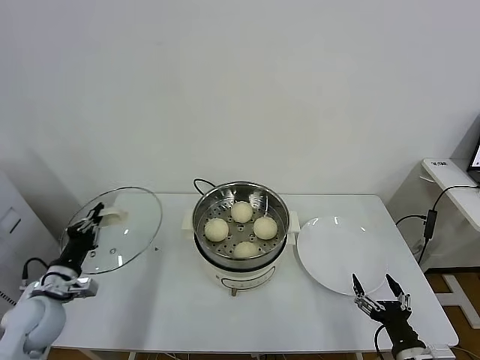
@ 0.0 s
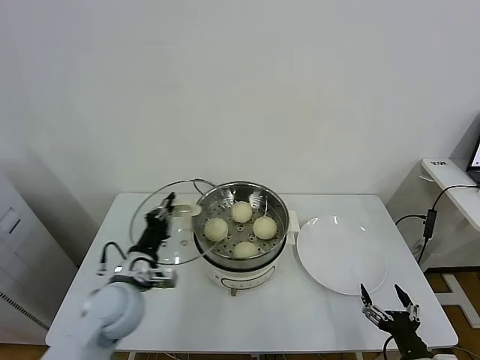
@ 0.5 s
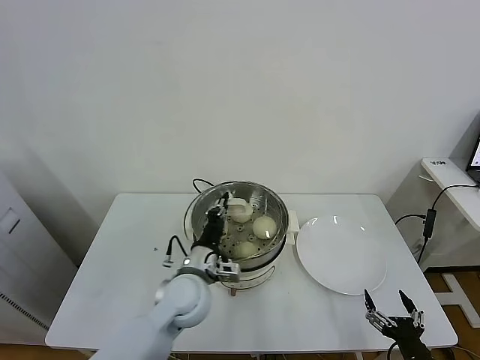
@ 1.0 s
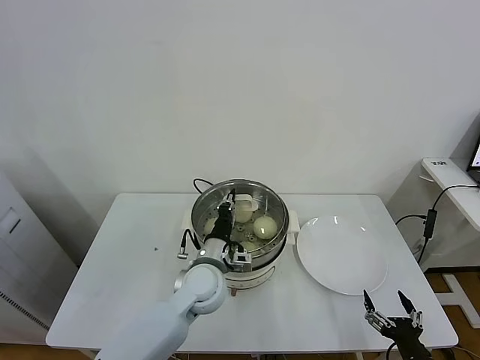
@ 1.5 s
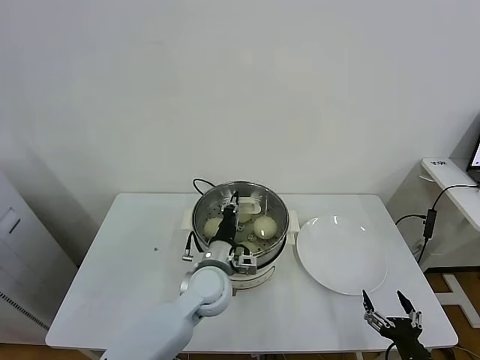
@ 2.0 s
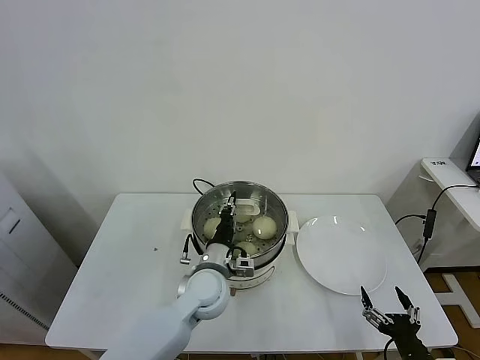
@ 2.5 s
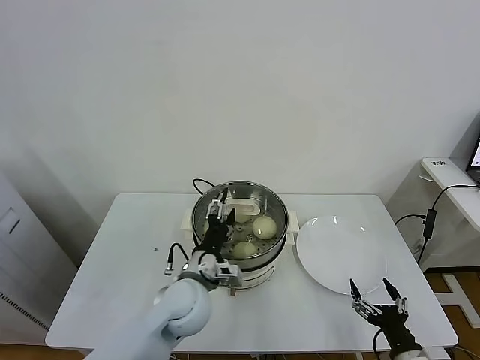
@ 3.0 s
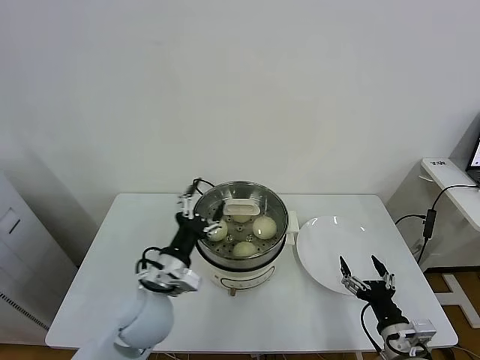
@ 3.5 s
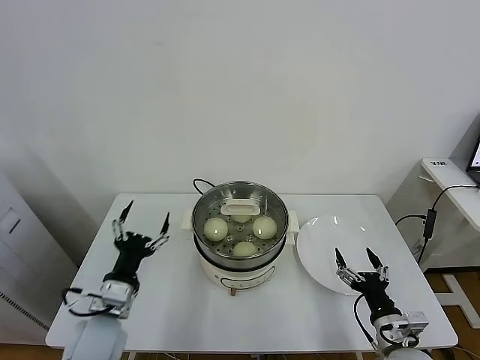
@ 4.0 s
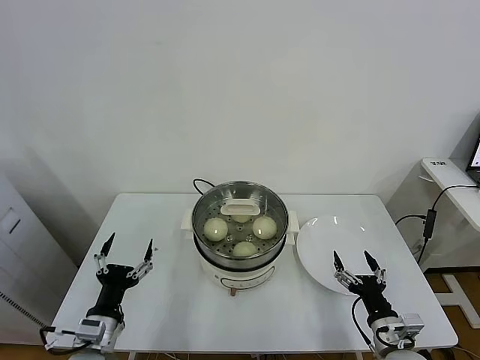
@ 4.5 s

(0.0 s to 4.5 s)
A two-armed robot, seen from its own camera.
Task of the whole recording: take steamed baozi put them in steamer.
Step, 0.0 s - 2.5 s: Place the pot lid on the steamer with left gripper.
0.0 s - 2.0 s: The left gripper moves to the right, roughly 35 cm.
2.0 s - 4.5 s: The left gripper is displaced to the left and backward by about 25 cm, and opens. Meanwhile the right gripper moves forward, some 10 cm.

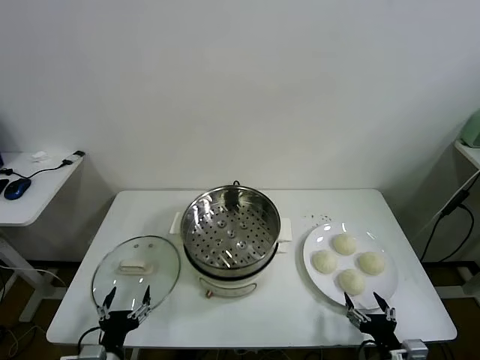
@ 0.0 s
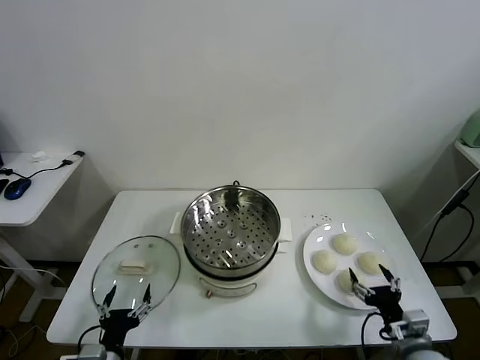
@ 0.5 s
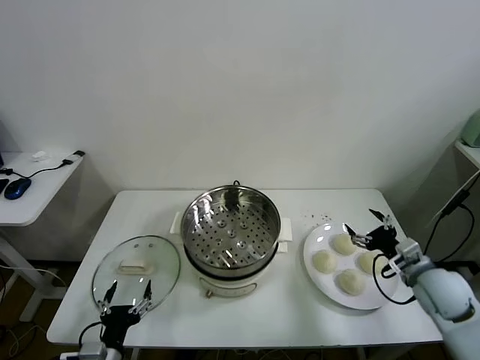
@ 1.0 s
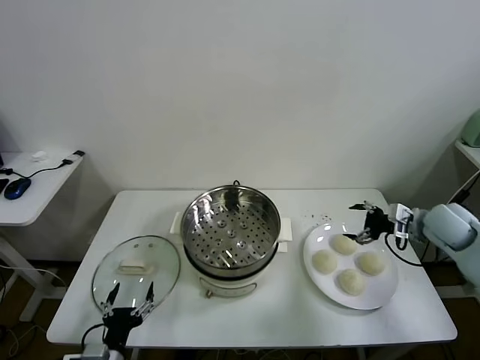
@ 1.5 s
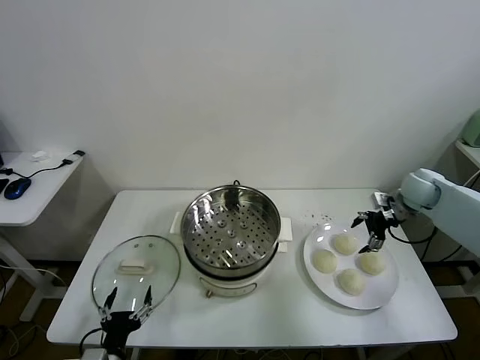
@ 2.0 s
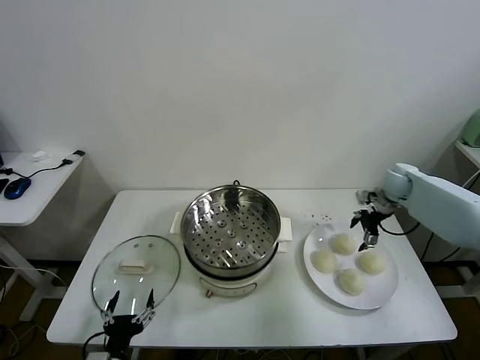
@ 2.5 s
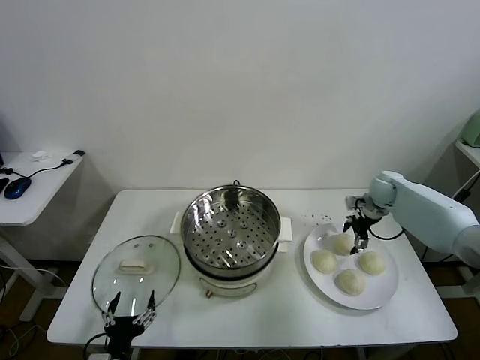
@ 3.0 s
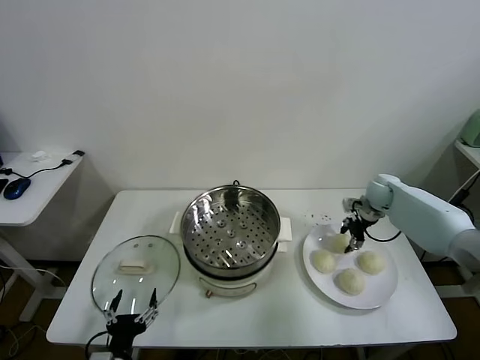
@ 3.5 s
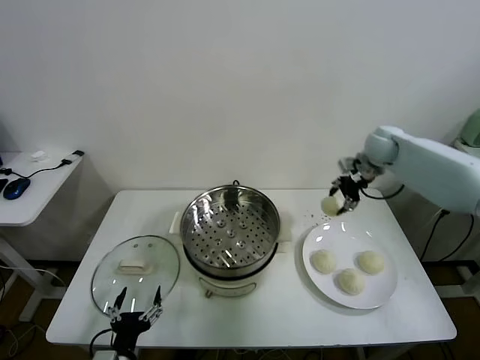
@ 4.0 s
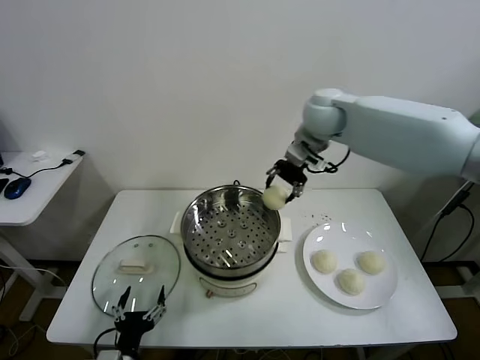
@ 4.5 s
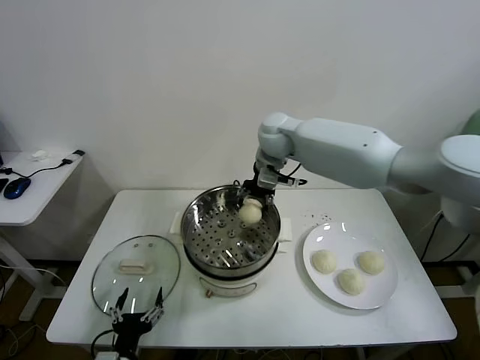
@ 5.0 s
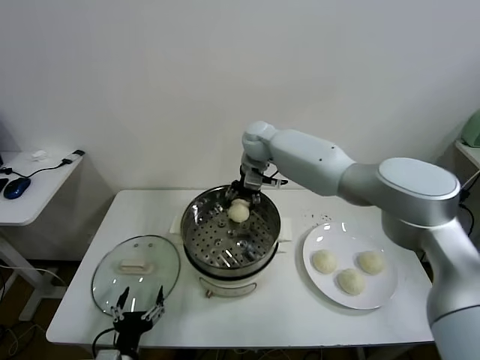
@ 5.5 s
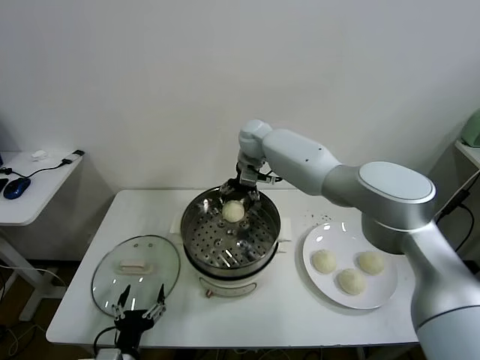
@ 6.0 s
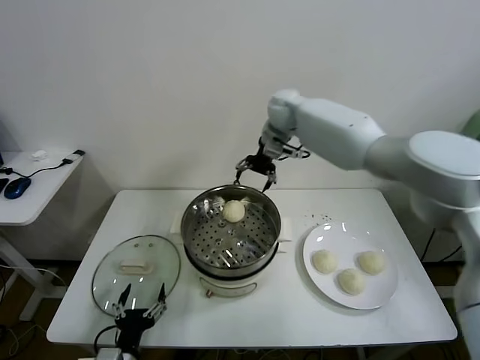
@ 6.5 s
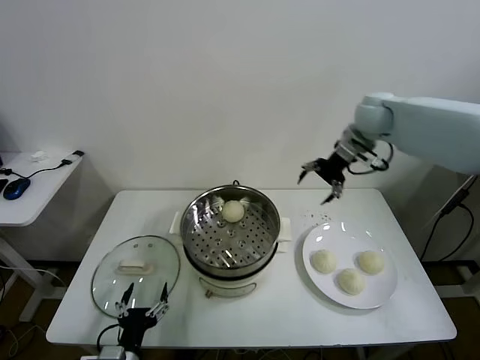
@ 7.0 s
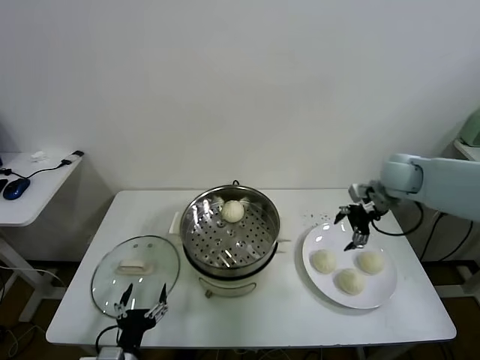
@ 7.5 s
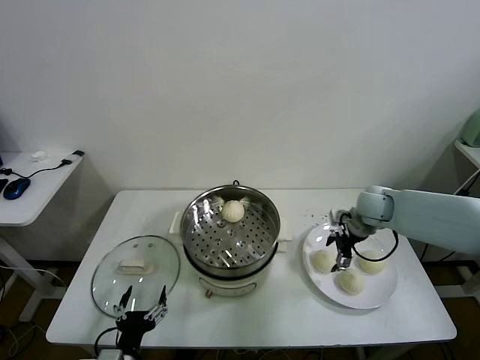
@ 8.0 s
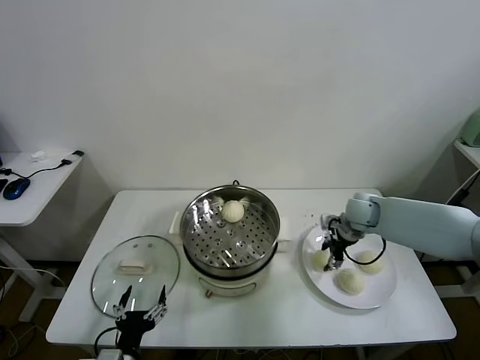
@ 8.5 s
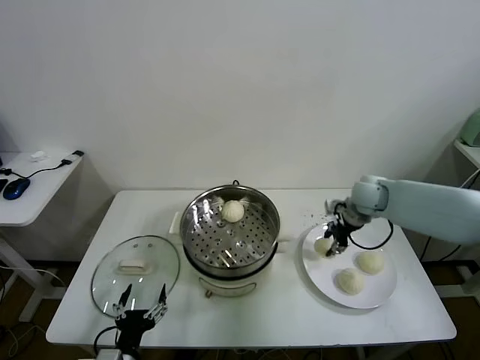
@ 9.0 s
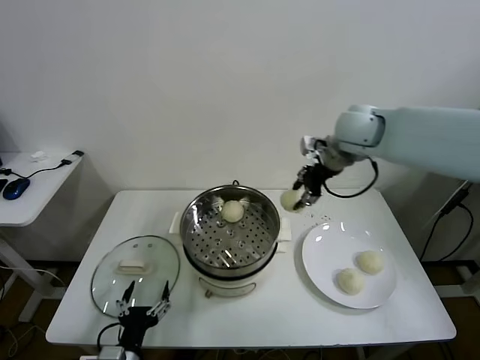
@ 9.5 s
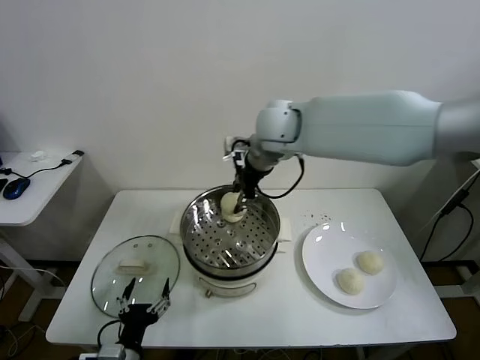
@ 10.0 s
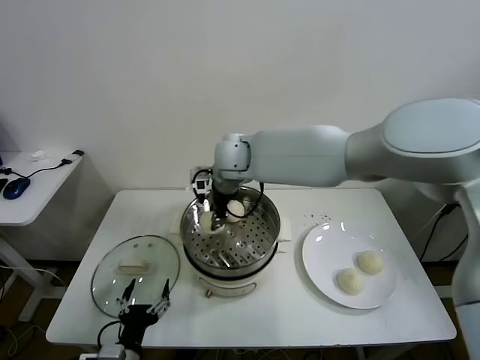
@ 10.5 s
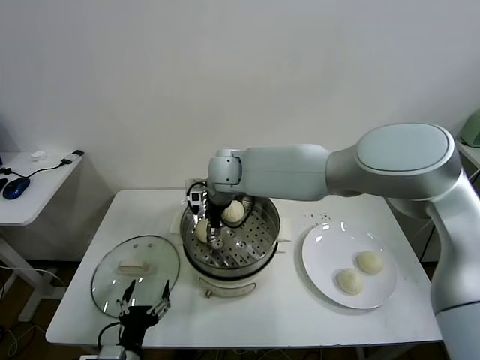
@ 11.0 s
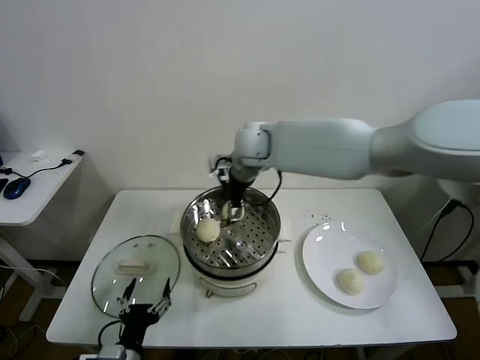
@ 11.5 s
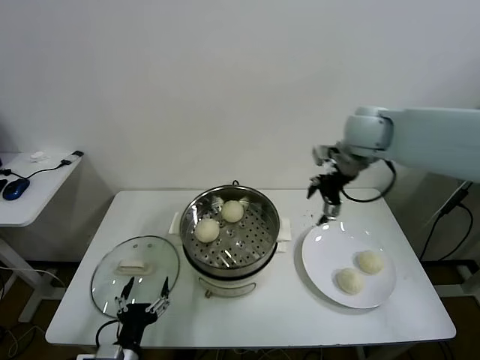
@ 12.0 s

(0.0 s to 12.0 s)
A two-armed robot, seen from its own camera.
Task of the whole recording: take steamed baozi put them in steamer.
Step, 0.0 s - 3.0 s: Grasp the baozi in the plate with right gripper.
Step, 3.5 s - 5.5 s: Place the baozi on the steamer with right gripper.
Step, 6.0 s - 8.0 s: Grasp the baozi in the plate with right gripper.
Step, 8.5 s - 11.0 s: Place the baozi on the steamer with right gripper.
2.0 s - 4.0 s: The right gripper goes roughly 20 cm upward and to the left, and closes.
4.0 s - 6.0 s: The right gripper heads to the left, covering about 25 cm, and opens its fingers.
6.0 s - 8.0 s: The right gripper moves to the right, backward and downward, about 35 cm.
8.0 s - 10.0 s: The right gripper travels to the left and upward by about 35 cm, and closes up.
10.0 s - 12.0 s: The right gripper moves to the right, about 25 cm, and opens.

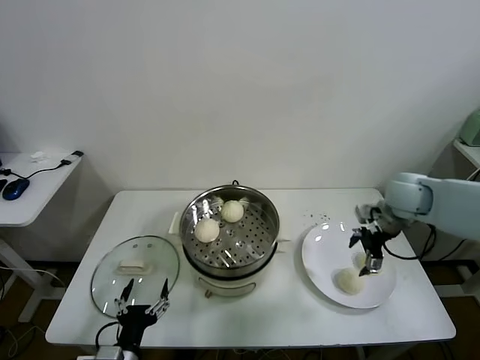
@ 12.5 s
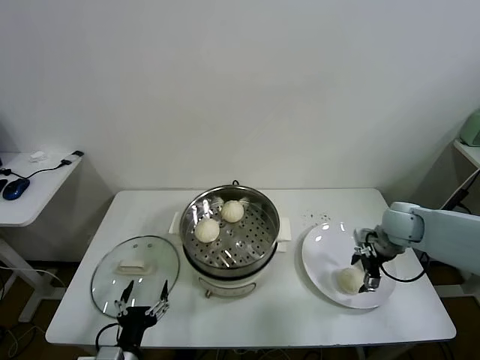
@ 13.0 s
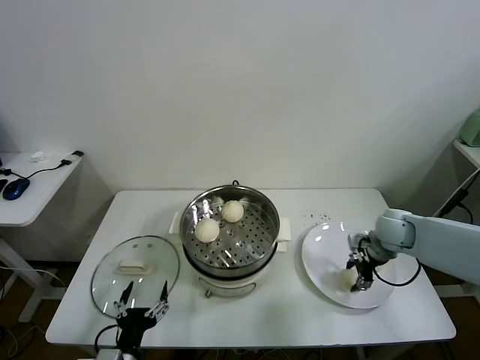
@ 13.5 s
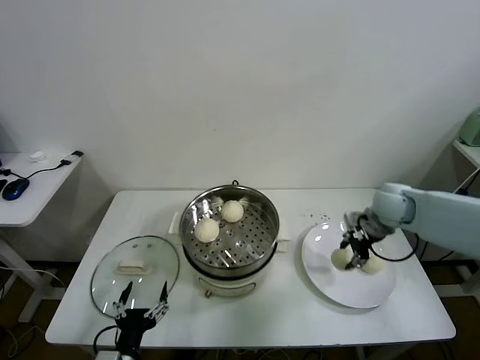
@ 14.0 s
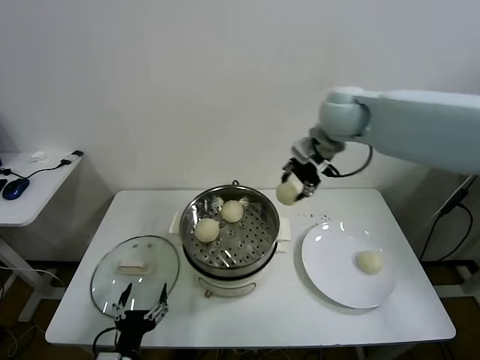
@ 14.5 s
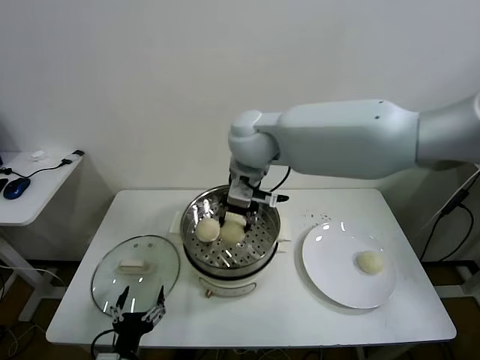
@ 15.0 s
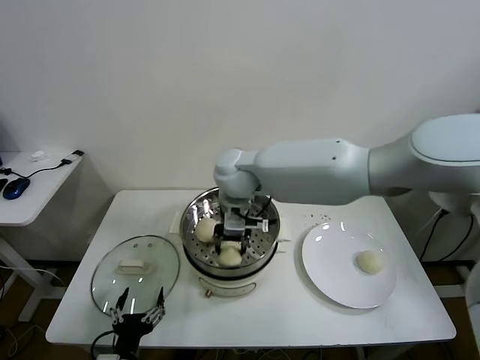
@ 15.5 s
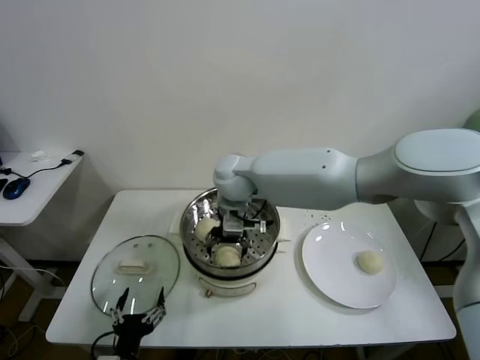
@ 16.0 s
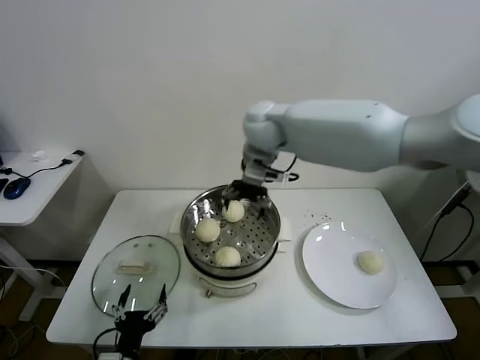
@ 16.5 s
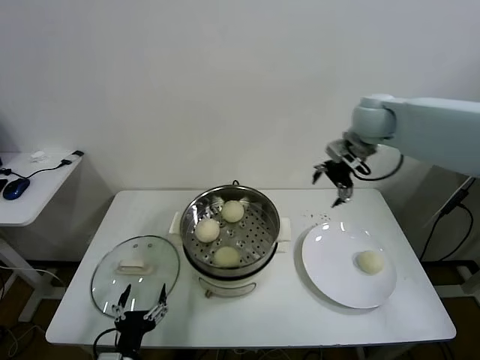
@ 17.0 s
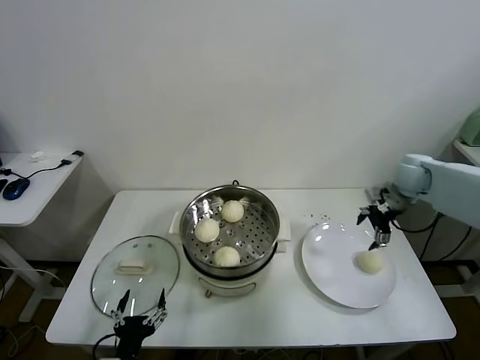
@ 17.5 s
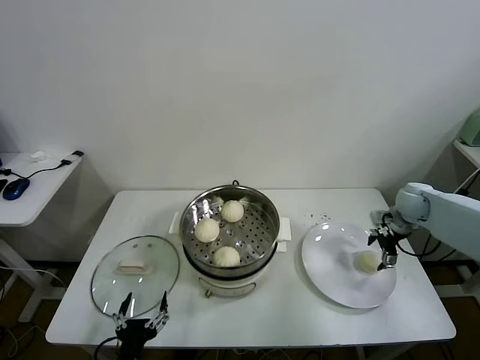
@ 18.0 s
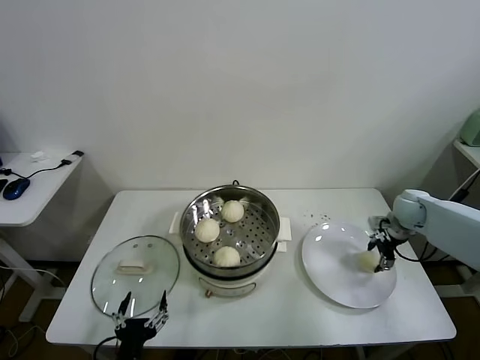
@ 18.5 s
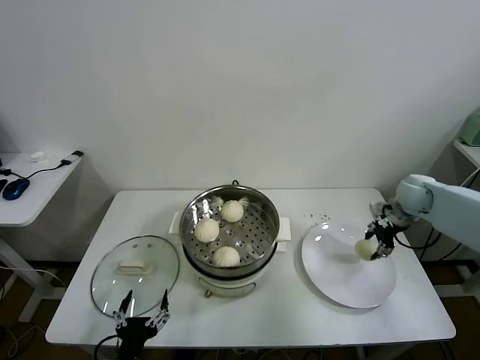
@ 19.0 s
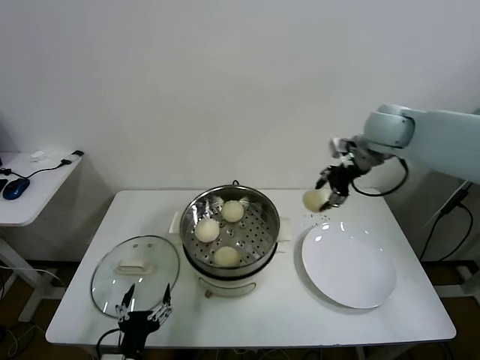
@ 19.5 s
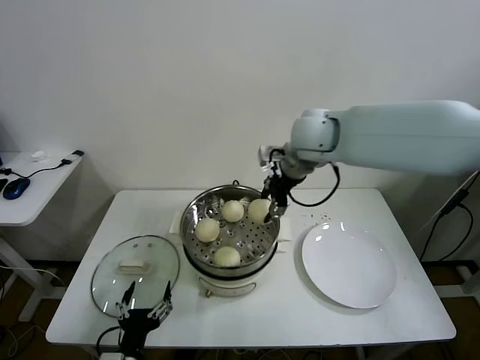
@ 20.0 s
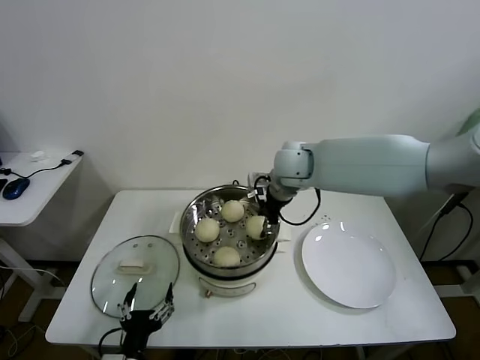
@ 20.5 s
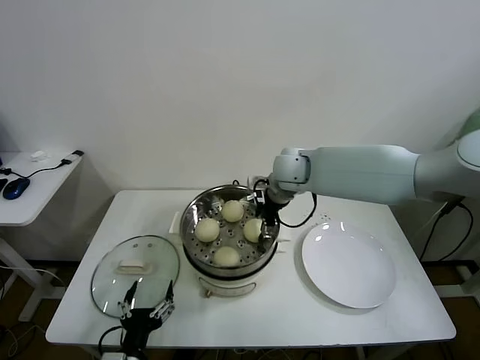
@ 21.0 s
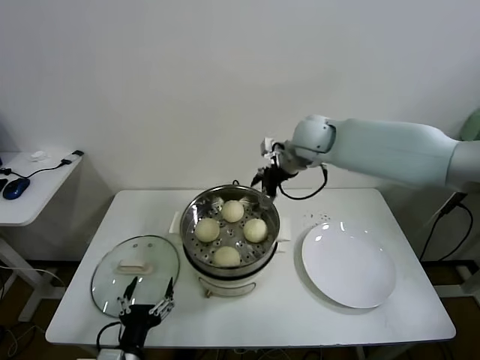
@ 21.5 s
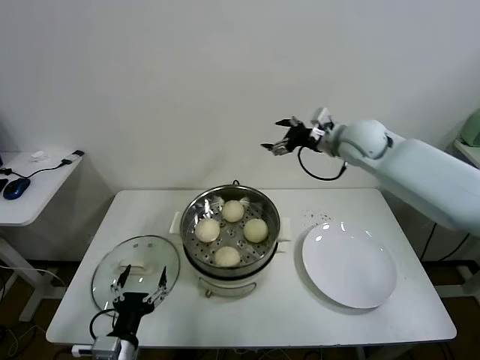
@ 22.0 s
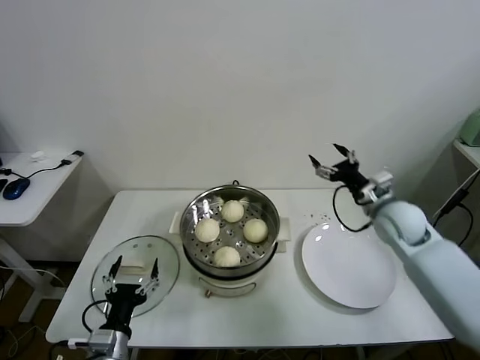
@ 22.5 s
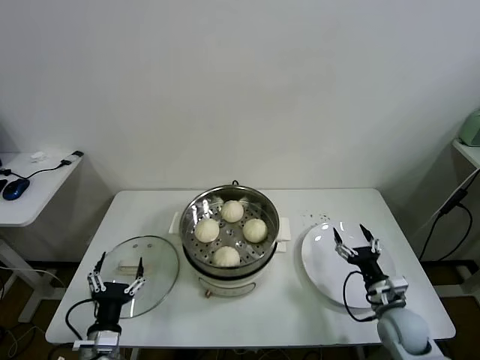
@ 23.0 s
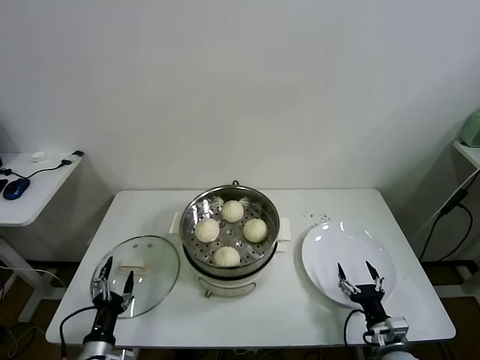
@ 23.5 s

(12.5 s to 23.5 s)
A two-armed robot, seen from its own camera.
Task of the whole recording: take steamed baozi put them in steamer.
Step, 13.5 s - 15.5 s: Place the baozi on the steamer with right gripper.
Step, 16.5 s - 18.5 s: Grasp the baozi in the plate with right gripper.
Step, 19.0 s - 21.0 s: Place the baozi on the steamer with right gripper.
12.5 s - 14.5 s: The right gripper shifts about 30 cm to the left and upward, and closes.
14.5 s - 16.0 s: The right gripper travels to the left and downward by roughly 20 cm, and opens its fingers.
16.0 s - 18.0 s: The right gripper heads to the right, covering some 50 cm.
18.0 s - 20.0 s: The right gripper goes about 40 cm to the left and upward, and closes its fingers.
20.0 s - 21.5 s: The right gripper heads forward, covering about 5 cm, goes downward and returns, about 10 cm each way, and opens its fingers.
21.5 s - 23.5 s: The left gripper shifts some 15 cm to the left and downward; the right gripper shifts approximately 60 cm downward, backward and to the right.
